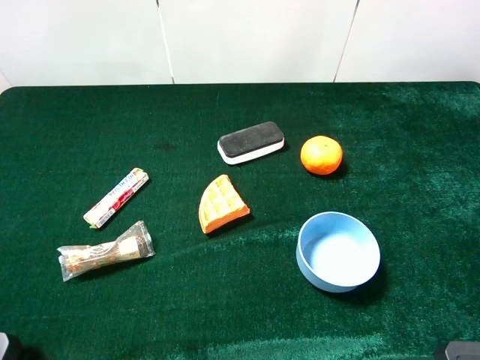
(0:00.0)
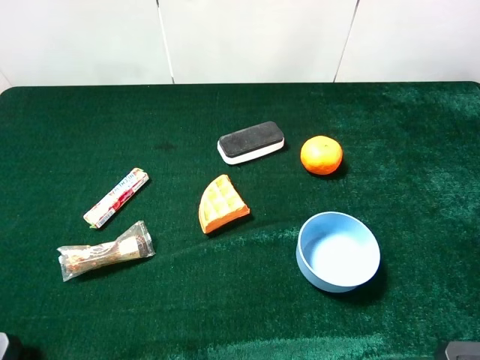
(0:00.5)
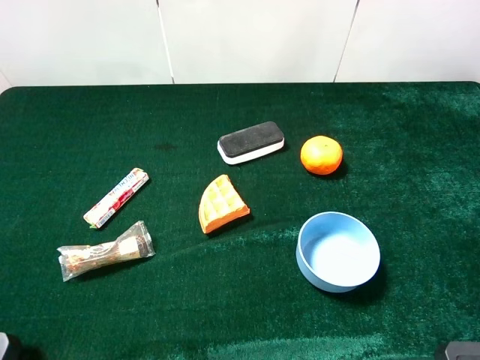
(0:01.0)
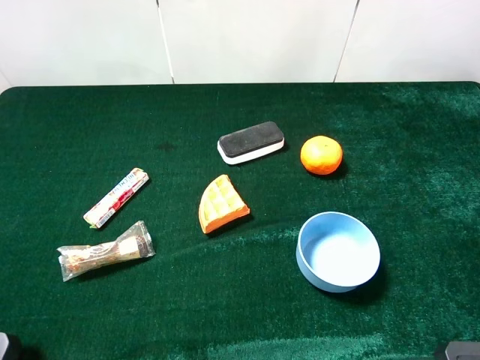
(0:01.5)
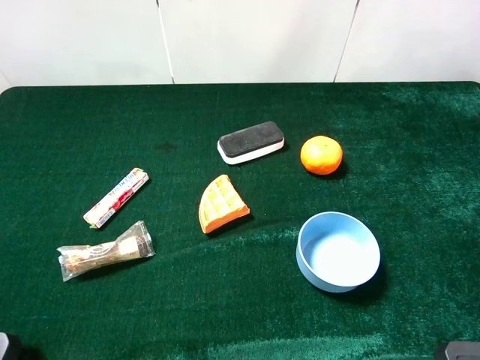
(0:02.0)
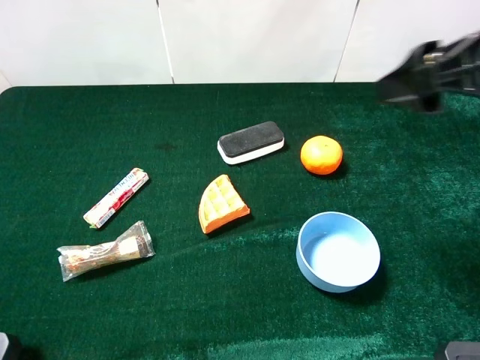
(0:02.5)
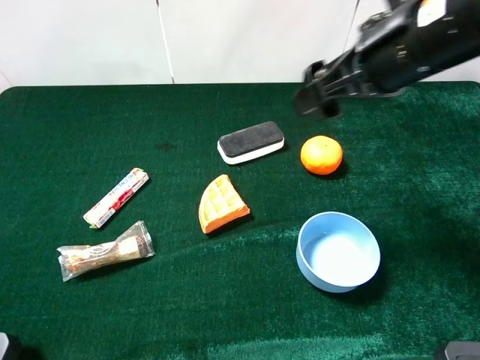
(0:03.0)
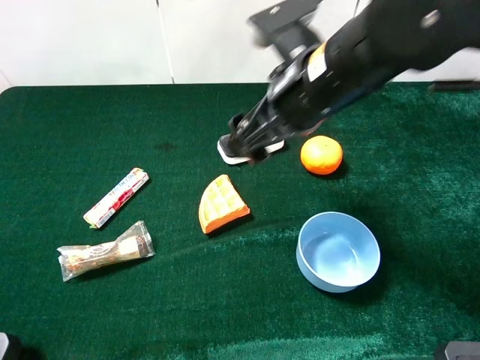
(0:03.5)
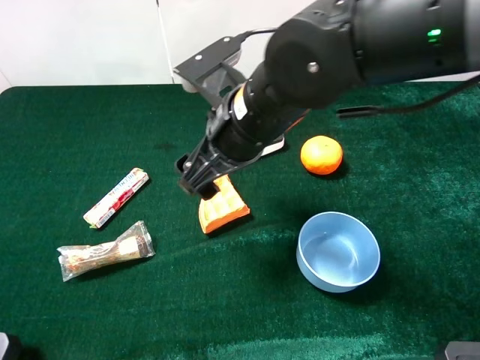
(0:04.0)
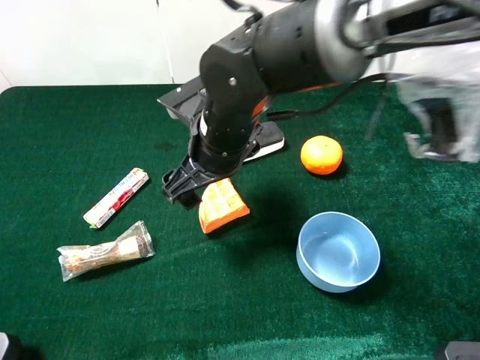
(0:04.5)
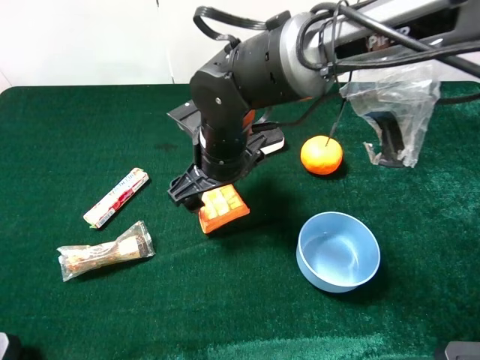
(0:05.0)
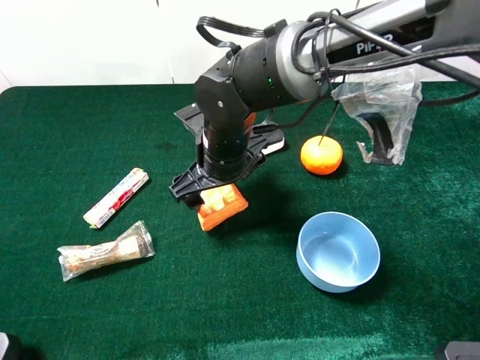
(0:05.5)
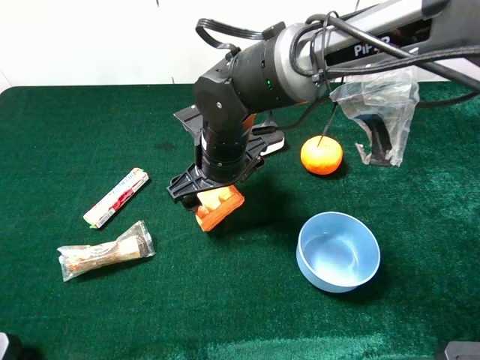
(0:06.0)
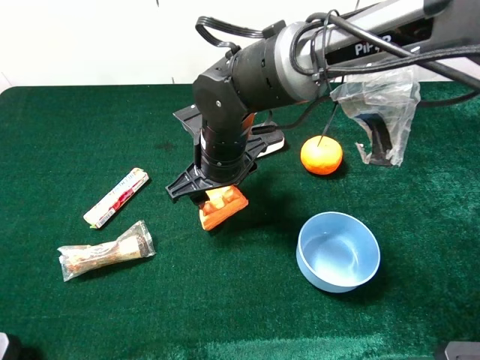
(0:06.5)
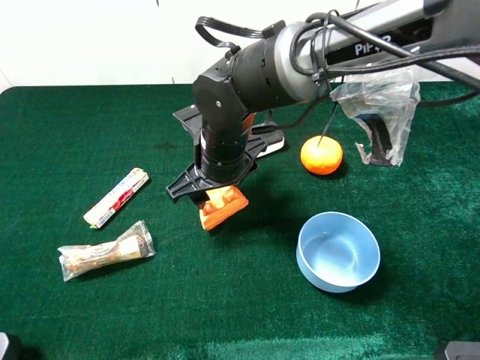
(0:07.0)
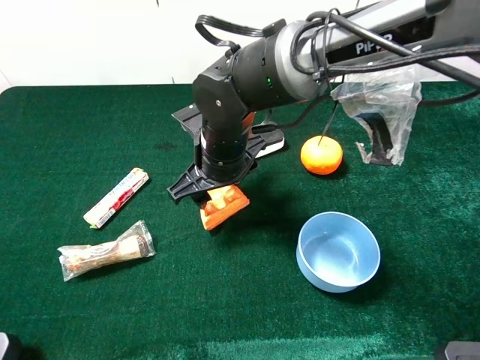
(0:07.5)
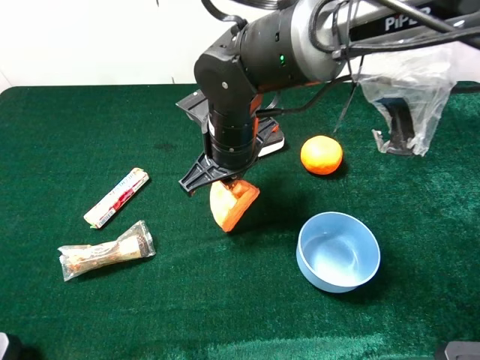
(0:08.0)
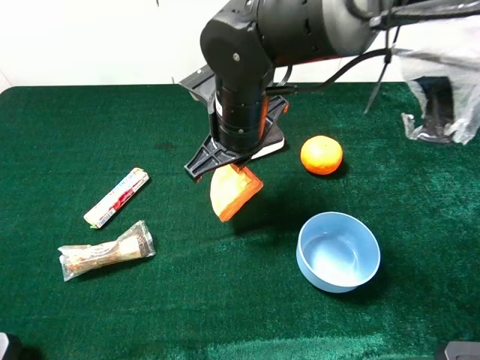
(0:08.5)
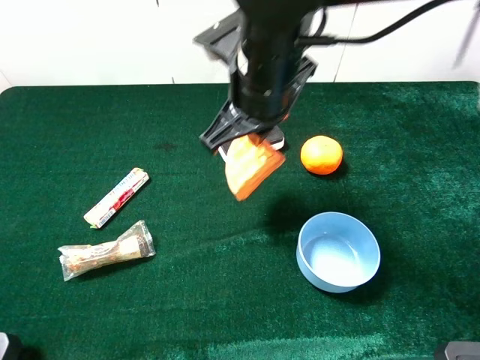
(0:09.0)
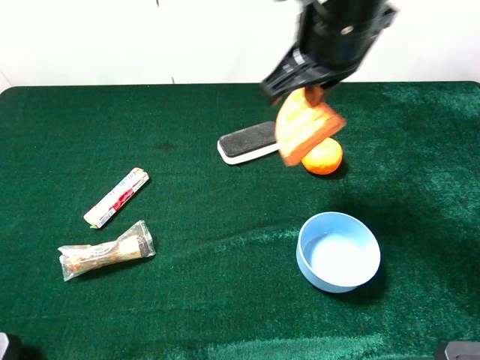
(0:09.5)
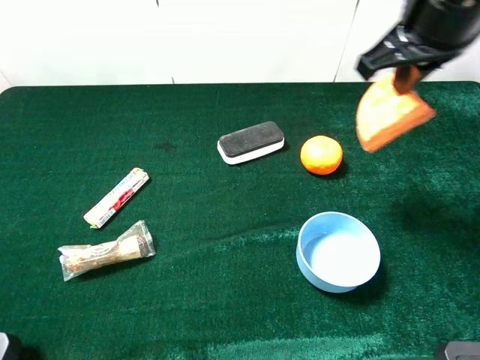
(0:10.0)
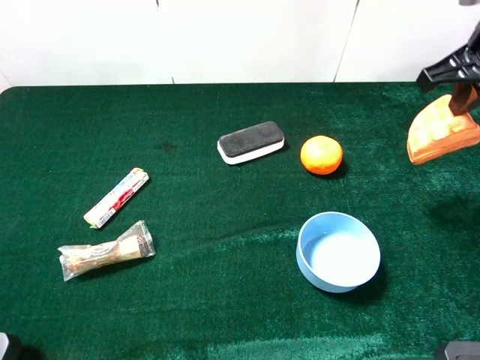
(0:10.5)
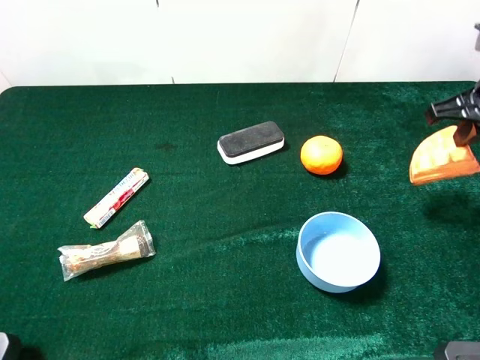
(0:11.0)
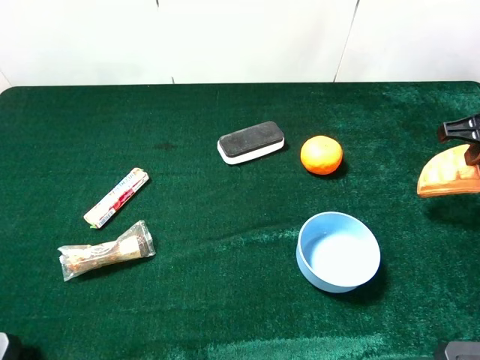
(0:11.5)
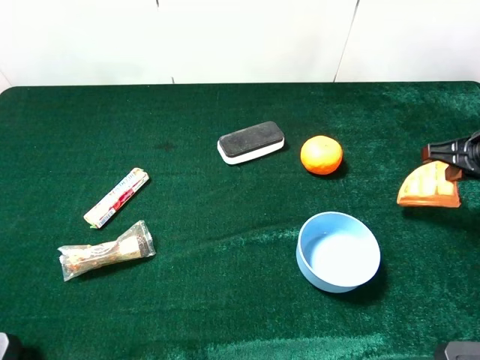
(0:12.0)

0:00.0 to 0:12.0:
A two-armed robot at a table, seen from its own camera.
Task of the whole recording: the gripper move the object.
Step, 0:00.0 to 0:06.5: Grasp the waffle with the right gripper.
0:02.0 to 0:04.0: The right gripper heads to the left, forward and downward, covering about 35 cm.
0:04.0 to 0:06.0: The right gripper travels downward by roughly 10 cm.
0:06.0 to 0:08.0: The right gripper closes its fingers.
0:08.0 to 0:10.0: The right gripper is displaced to the right and upward by roughly 25 cm.
0:10.0 to 0:12.0: The right gripper goes approximately 20 cm downward and to the right.

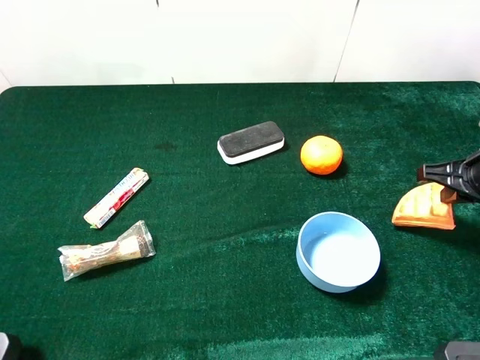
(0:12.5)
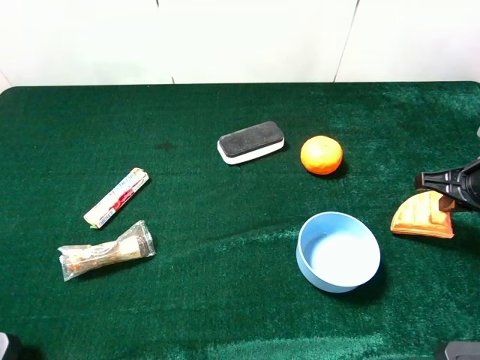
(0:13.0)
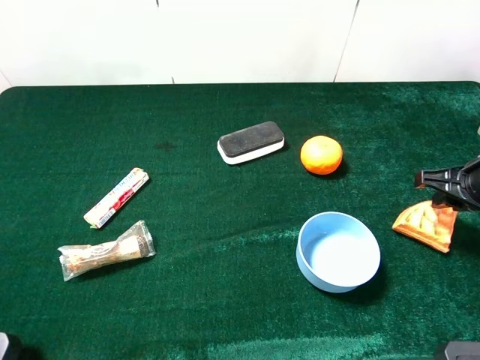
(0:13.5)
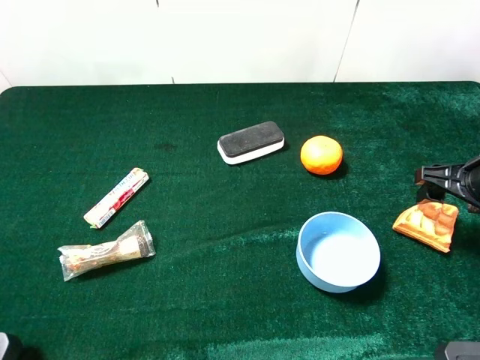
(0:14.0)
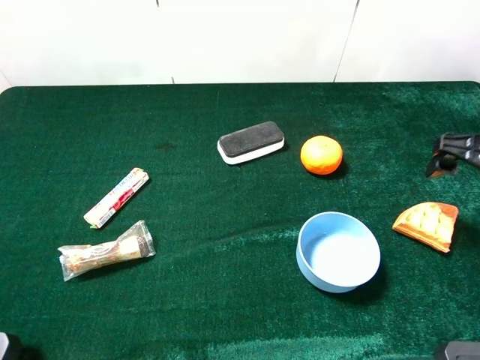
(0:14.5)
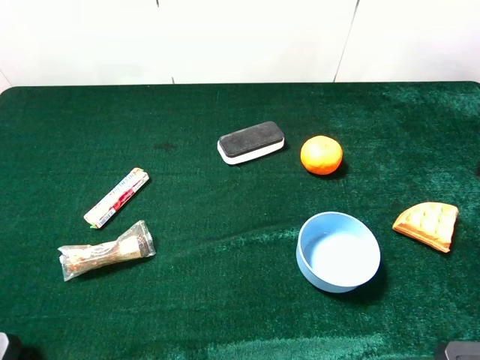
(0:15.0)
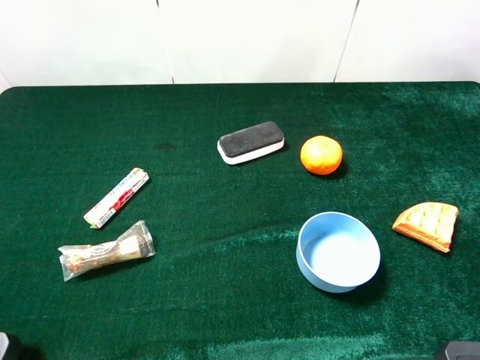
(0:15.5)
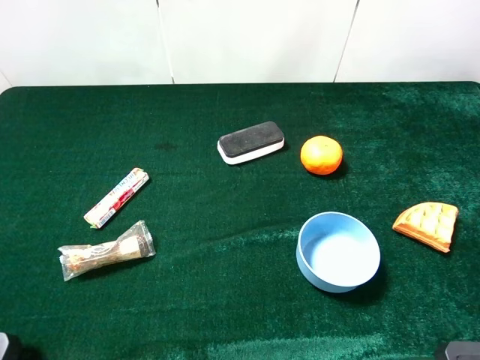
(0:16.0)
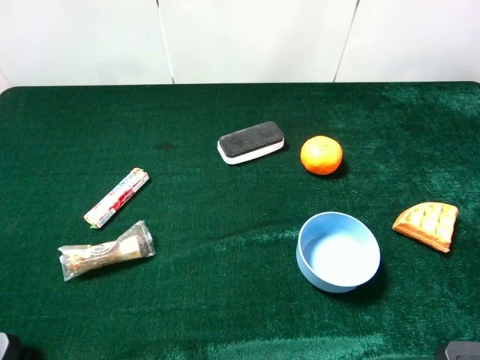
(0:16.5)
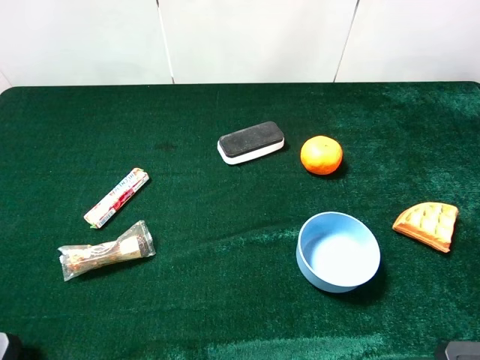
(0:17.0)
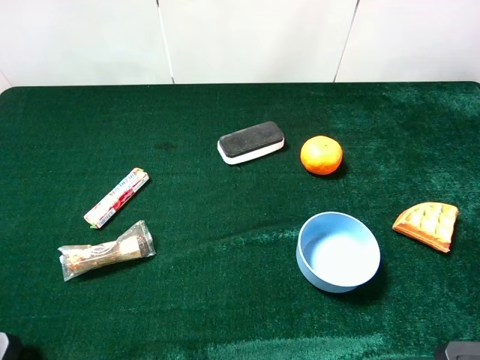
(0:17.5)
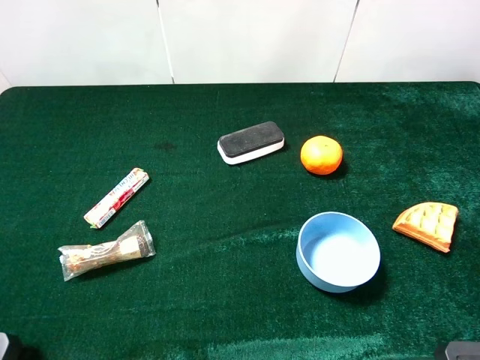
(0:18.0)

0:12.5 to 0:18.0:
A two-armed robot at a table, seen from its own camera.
Task of the whole recording: the gripper move the object.
0:12.5 to 0:14.5: The right gripper goes approximately 5 cm upward, and opens its fingers.
0:14.5 to 0:16.0: The right gripper is displaced backward and upward by approximately 25 cm.
